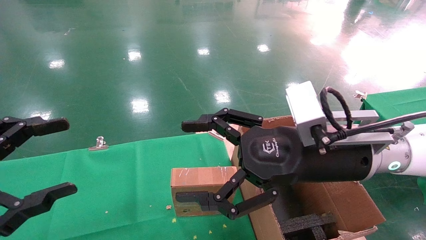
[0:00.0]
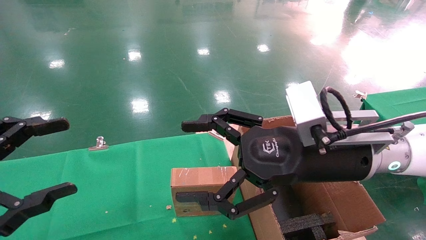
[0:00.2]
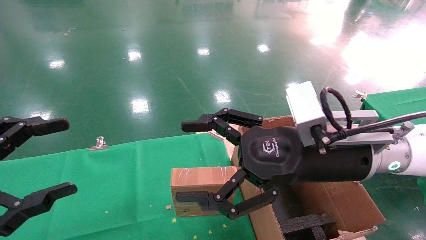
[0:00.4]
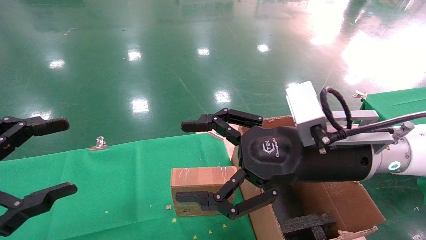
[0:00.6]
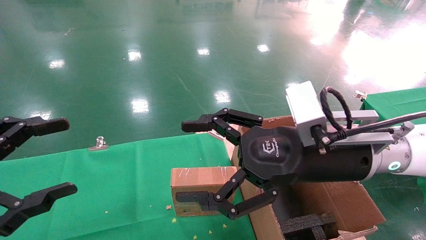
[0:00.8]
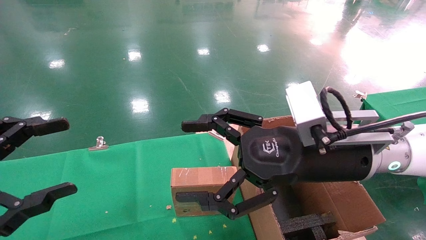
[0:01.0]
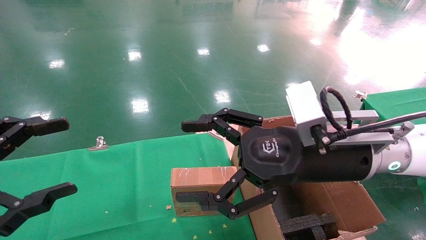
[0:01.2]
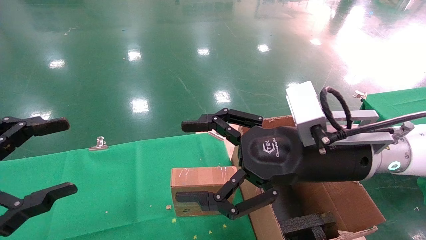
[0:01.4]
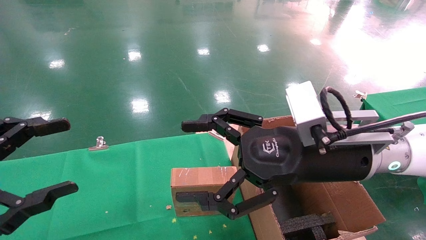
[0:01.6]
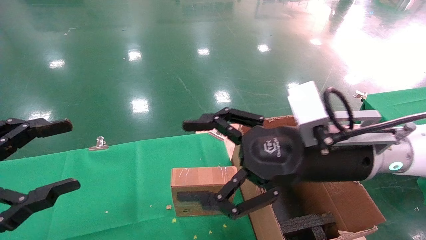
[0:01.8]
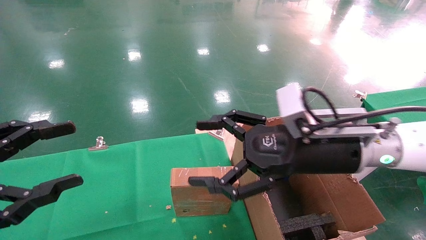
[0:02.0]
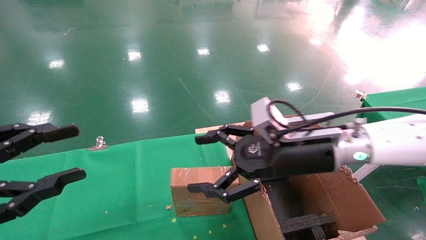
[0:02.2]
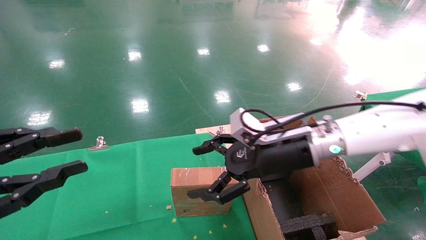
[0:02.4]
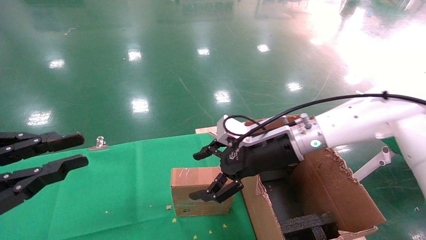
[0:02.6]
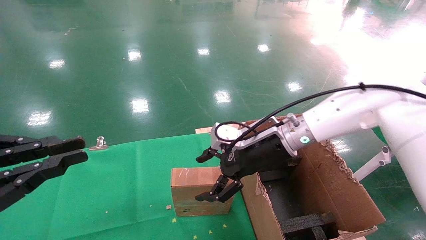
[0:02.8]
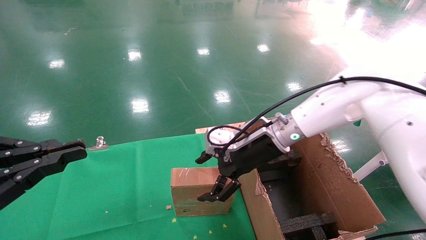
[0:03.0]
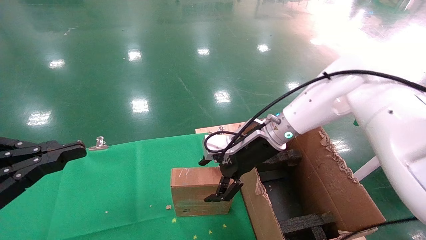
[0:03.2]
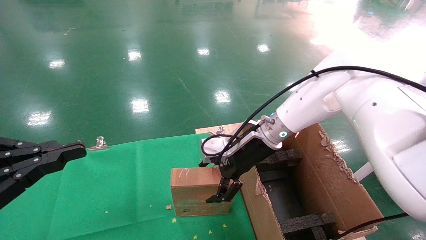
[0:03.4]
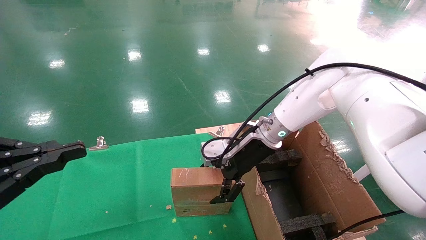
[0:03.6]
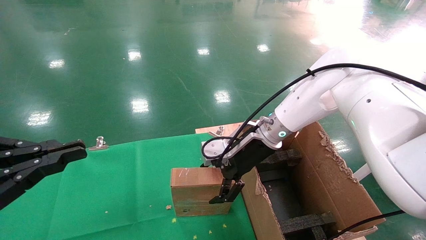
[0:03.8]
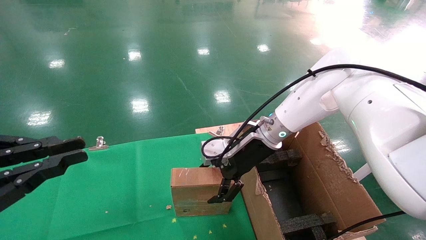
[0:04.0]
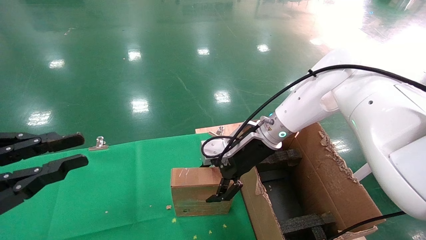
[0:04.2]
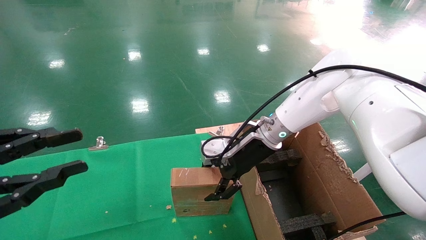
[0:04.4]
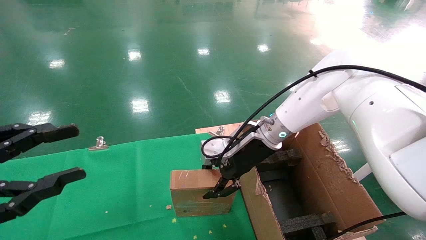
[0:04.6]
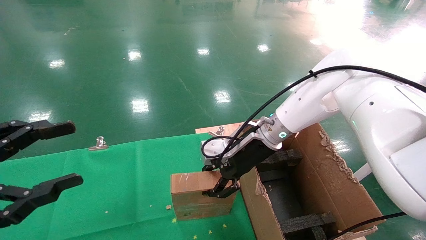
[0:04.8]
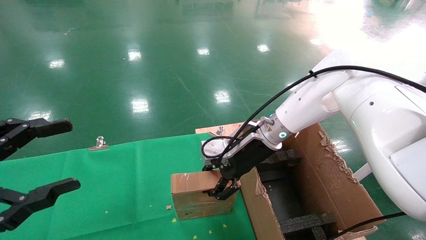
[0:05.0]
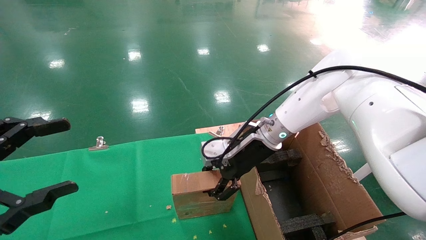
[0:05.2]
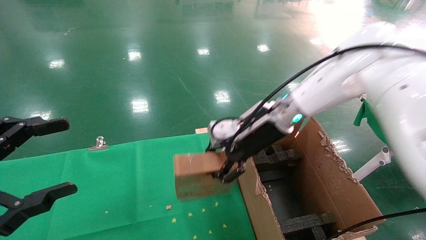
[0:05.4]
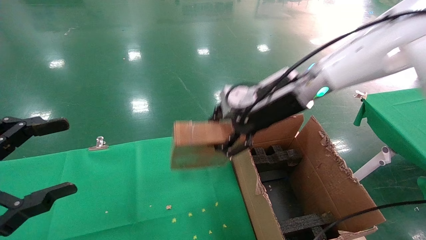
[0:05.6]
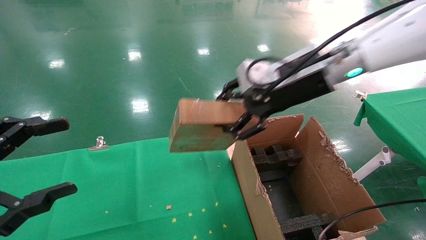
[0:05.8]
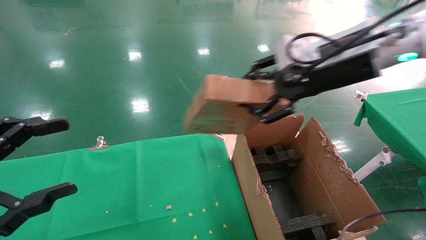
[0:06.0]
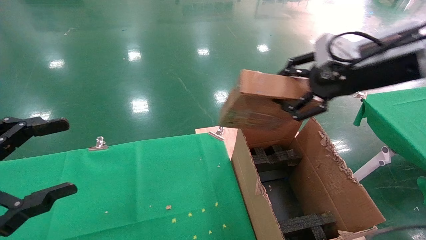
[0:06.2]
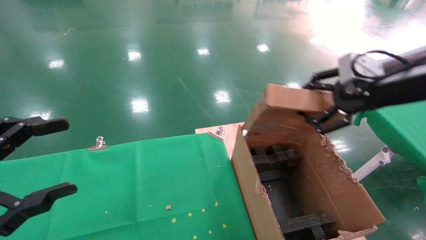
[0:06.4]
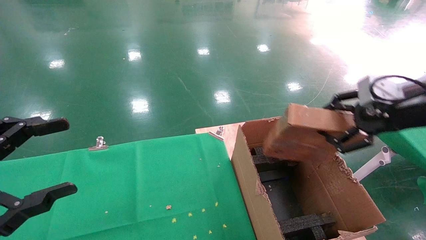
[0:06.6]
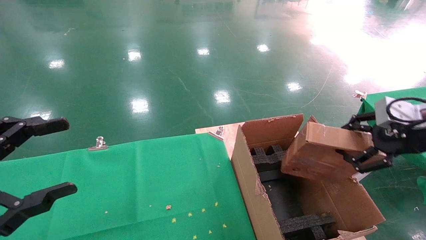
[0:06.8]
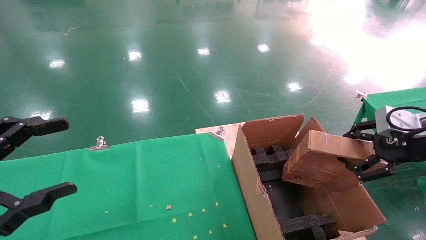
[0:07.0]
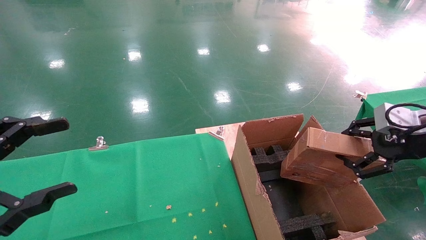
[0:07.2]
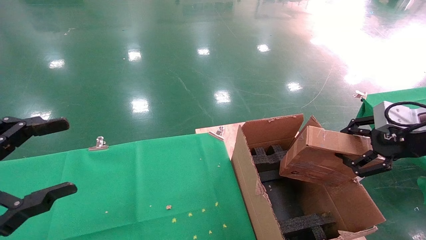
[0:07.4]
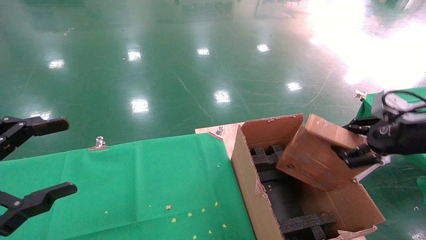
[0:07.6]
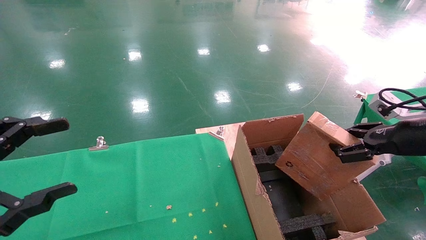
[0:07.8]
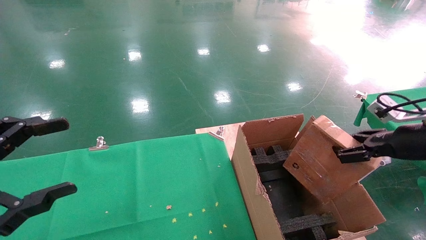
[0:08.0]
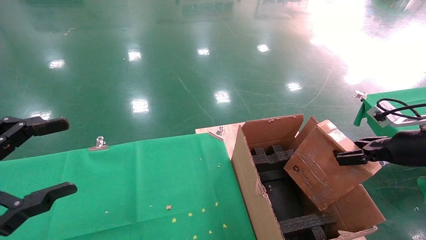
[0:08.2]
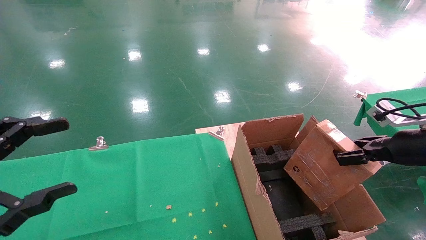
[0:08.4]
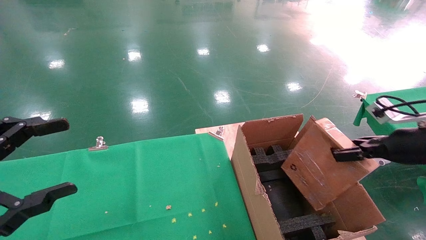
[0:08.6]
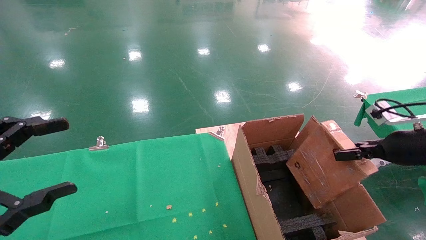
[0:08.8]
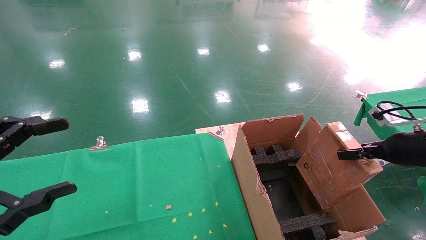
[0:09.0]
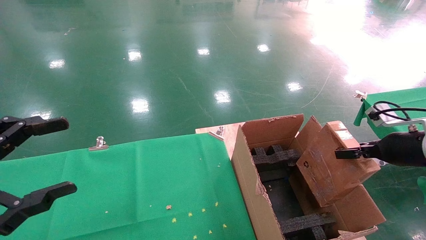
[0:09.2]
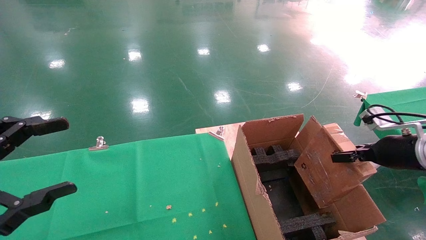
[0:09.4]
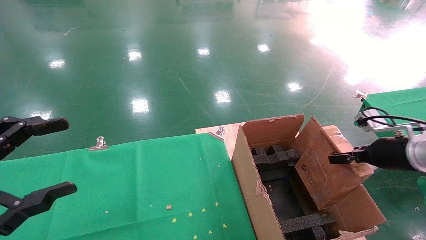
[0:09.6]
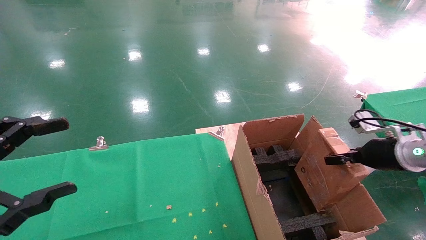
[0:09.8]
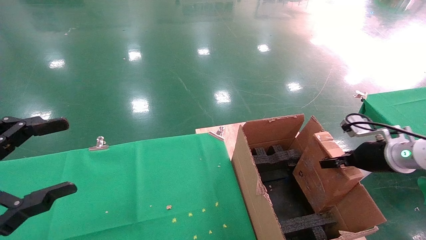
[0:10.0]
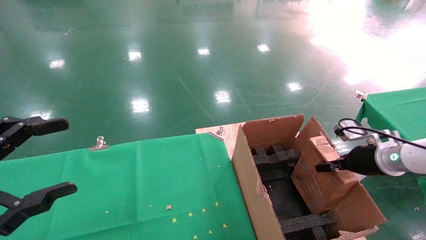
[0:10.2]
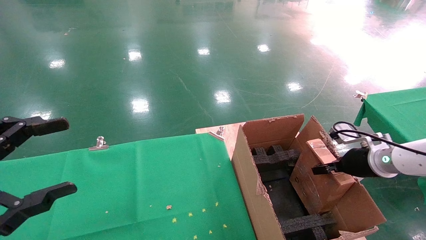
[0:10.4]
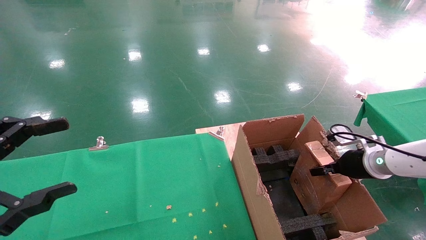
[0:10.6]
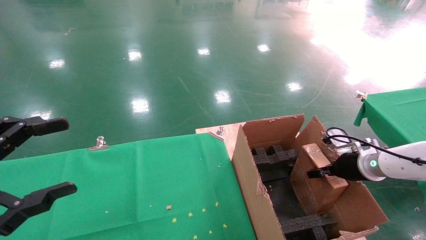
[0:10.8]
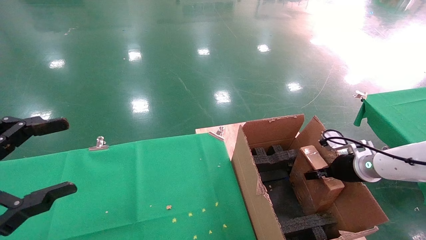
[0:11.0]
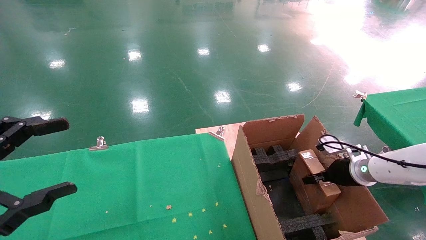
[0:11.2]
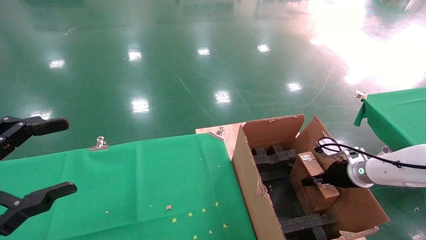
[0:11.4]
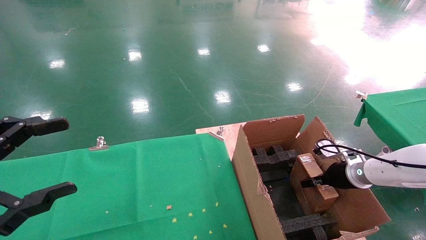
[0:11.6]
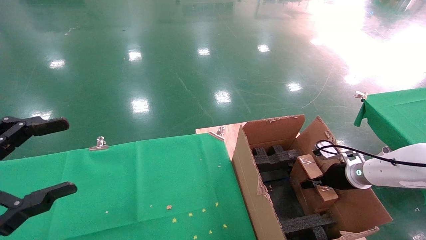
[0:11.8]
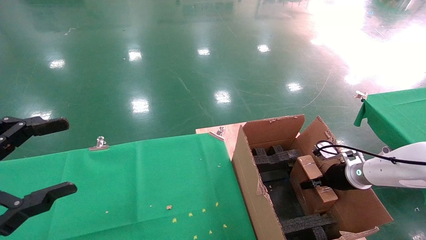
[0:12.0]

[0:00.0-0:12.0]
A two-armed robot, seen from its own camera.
Task of the whole recording: using a robotic arm to pick up a cardboard box and palace it the carton.
Step, 0:02.2 to 0:05.0: Pick up the mouse and the power cord paper box.
0:00.0 to 0:01.6: Both grippers stay put.
0:01.6 to 0:03.0: The right gripper goes roughly 15 cm forward. Meanwhile the left gripper closes up.
0:03.0 to 0:04.4: The grippers make only small movements.
0:04.4 to 0:06.0: The left gripper opens its fingers. The right gripper goes some 20 cm upward, to the right and backward, and closes up.
0:06.0 to 0:07.6: The right gripper heads to the right, downward and backward, covering about 20 cm.
0:07.6 to 0:09.0: The right gripper moves downward, roughly 5 cm.
0:09.0 to 0:10.4: The right gripper goes about 10 cm forward, downward and to the left.
0:10.4 to 0:12.0: The right gripper goes approximately 5 cm downward.

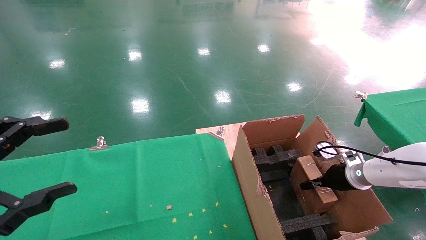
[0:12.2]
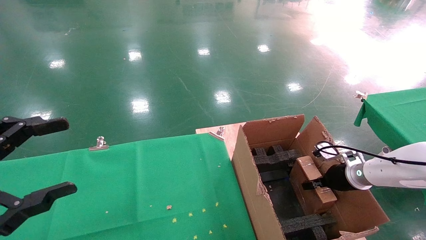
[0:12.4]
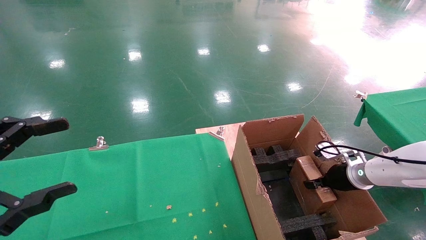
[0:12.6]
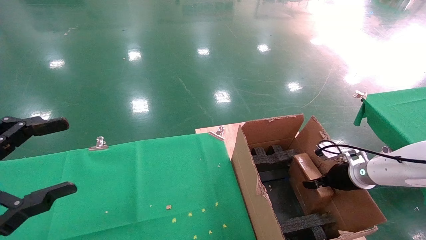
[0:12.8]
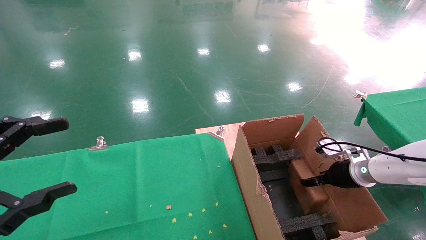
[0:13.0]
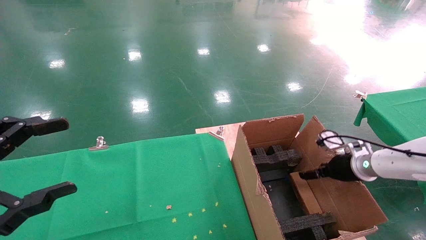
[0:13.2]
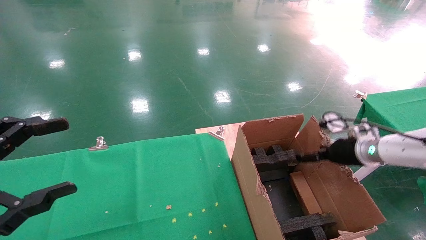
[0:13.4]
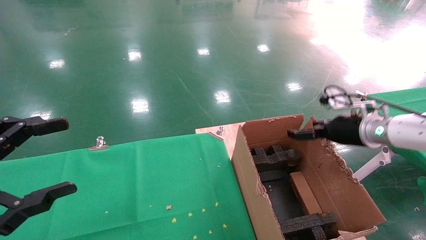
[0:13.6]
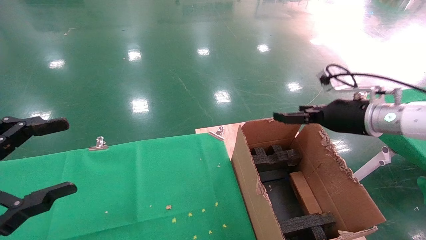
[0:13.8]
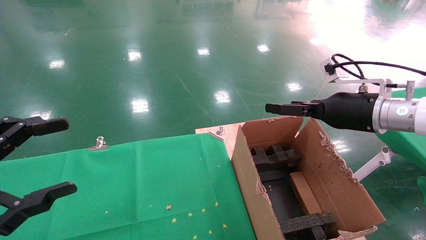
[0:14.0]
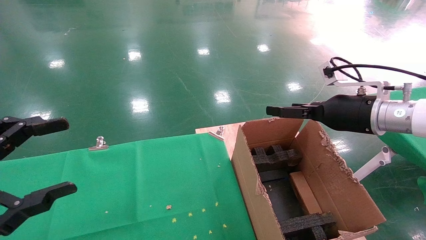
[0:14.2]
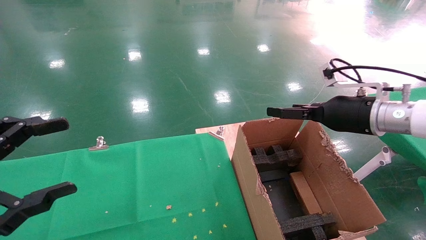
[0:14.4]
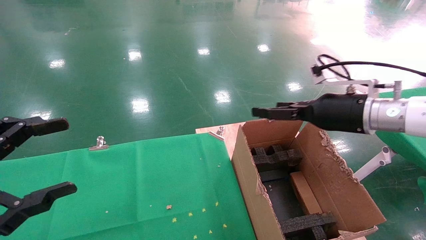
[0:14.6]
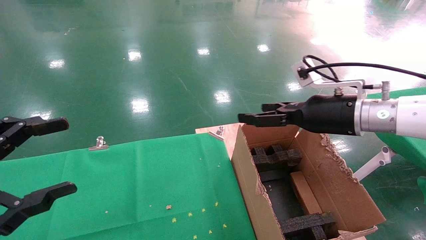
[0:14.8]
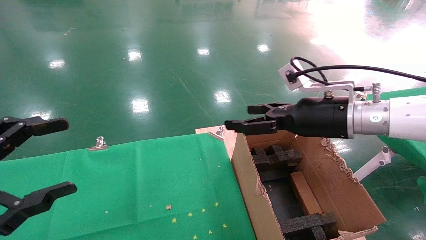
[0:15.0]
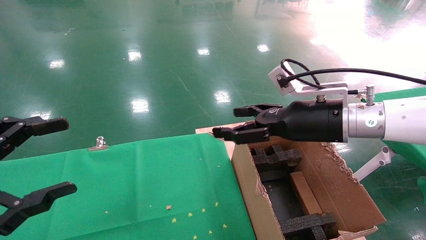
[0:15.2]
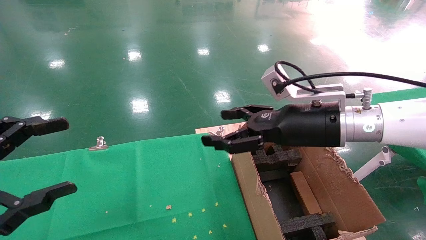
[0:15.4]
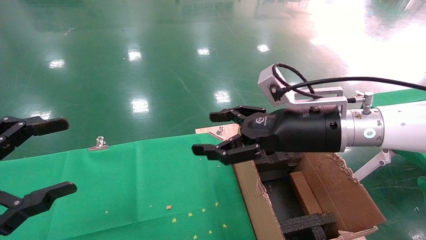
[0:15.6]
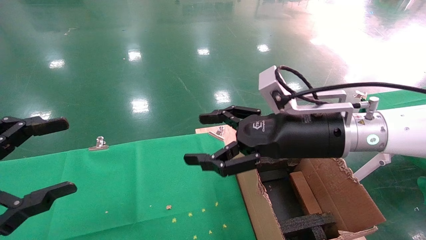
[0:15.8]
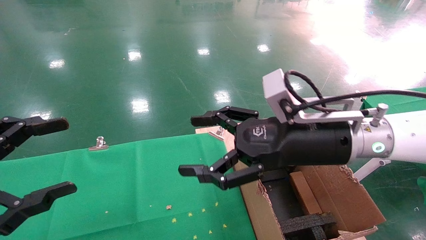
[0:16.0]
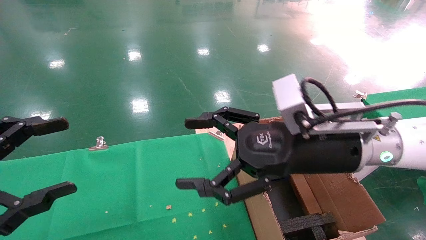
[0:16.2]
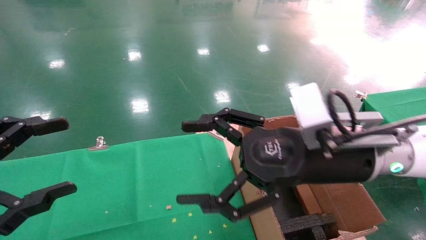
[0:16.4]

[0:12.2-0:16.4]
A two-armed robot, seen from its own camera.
Task of the whole recording: using a robotic arm to pick up a cardboard box and palace it the carton.
0:12.2 to 0:13.6: The right gripper goes approximately 15 cm upward, and opens its fingers.
0:13.6 to 0:15.0: The right gripper goes approximately 10 cm to the left.
0:15.0 to 0:16.4: The right gripper moves backward and to the left, approximately 10 cm.
